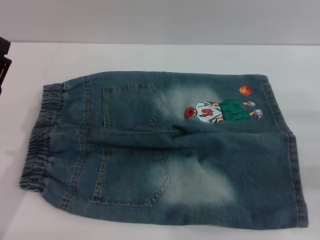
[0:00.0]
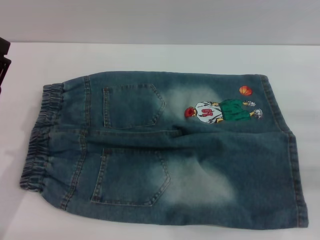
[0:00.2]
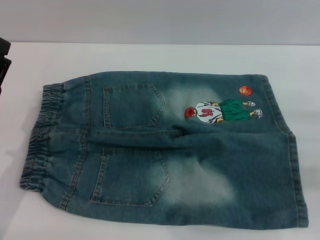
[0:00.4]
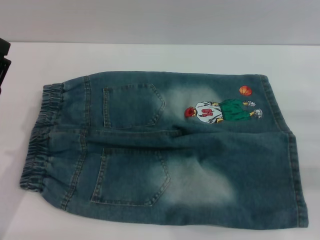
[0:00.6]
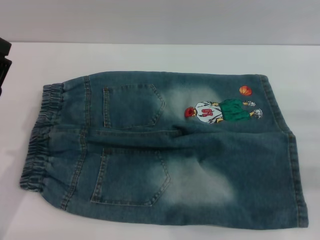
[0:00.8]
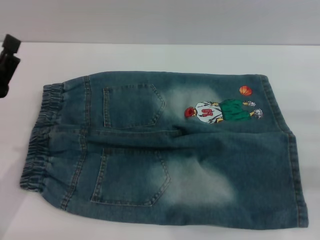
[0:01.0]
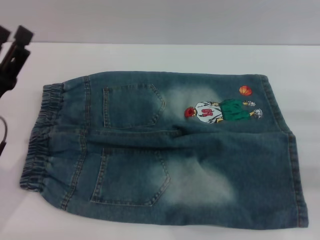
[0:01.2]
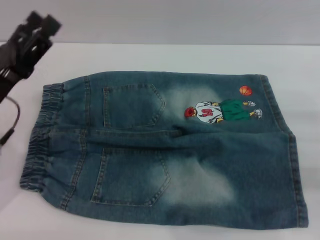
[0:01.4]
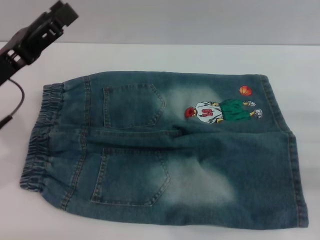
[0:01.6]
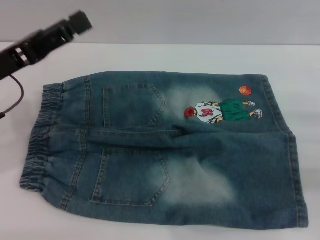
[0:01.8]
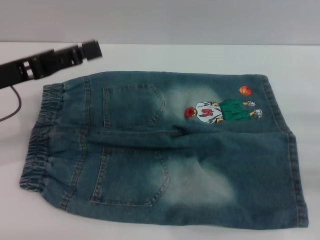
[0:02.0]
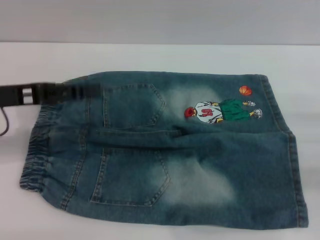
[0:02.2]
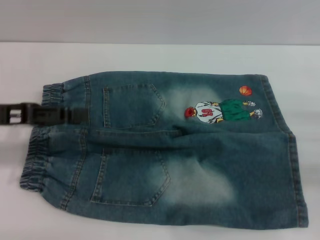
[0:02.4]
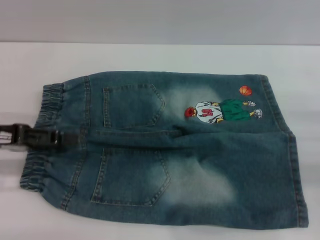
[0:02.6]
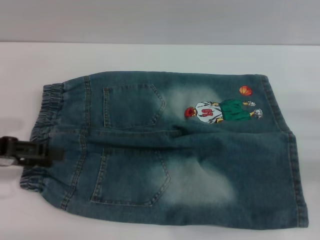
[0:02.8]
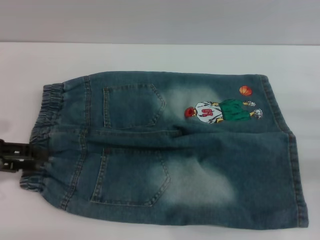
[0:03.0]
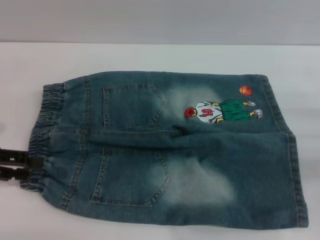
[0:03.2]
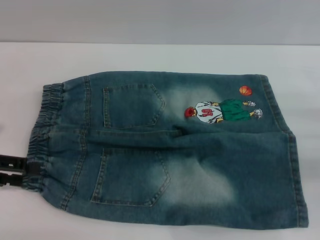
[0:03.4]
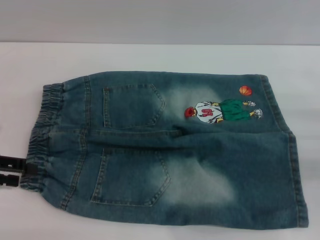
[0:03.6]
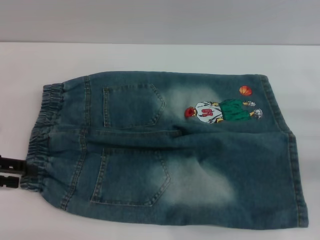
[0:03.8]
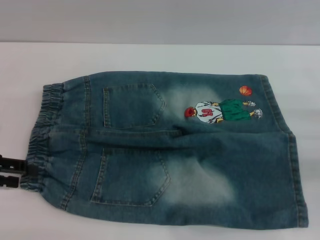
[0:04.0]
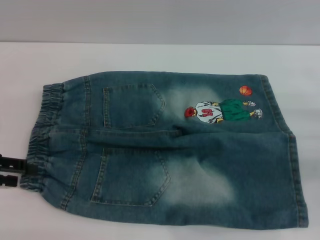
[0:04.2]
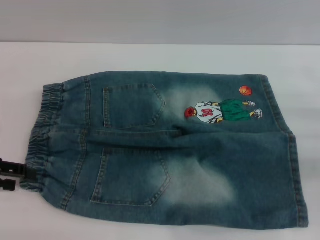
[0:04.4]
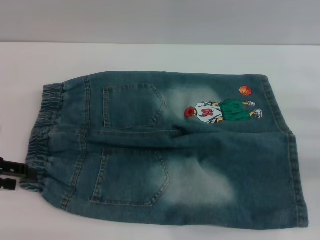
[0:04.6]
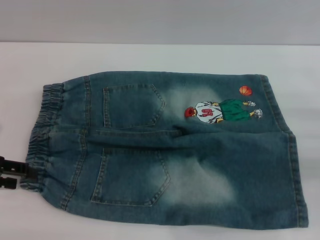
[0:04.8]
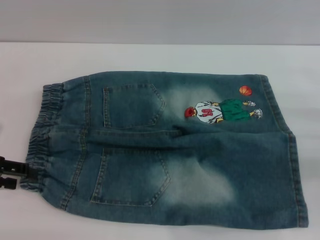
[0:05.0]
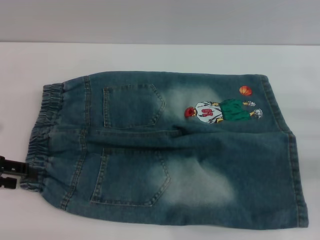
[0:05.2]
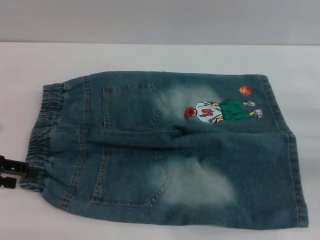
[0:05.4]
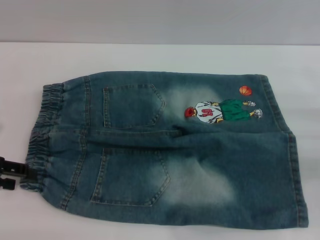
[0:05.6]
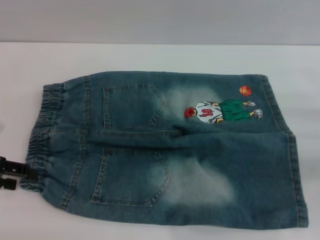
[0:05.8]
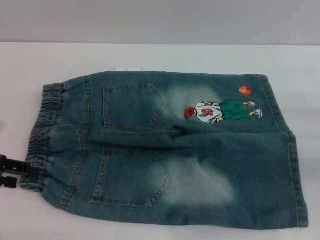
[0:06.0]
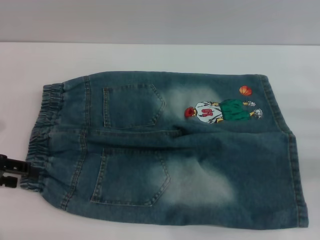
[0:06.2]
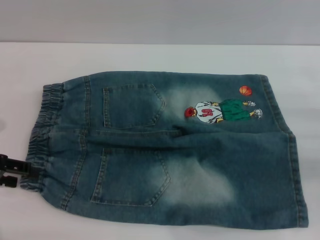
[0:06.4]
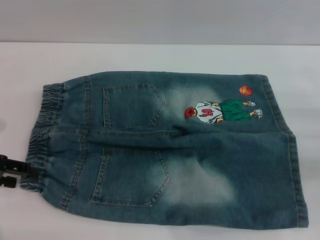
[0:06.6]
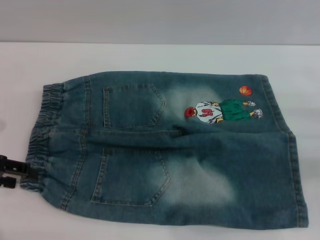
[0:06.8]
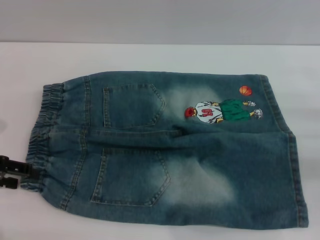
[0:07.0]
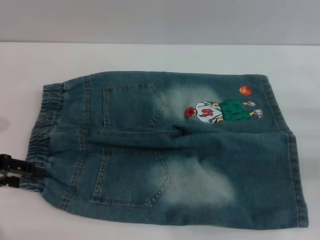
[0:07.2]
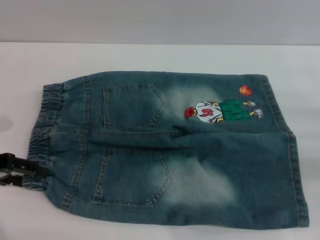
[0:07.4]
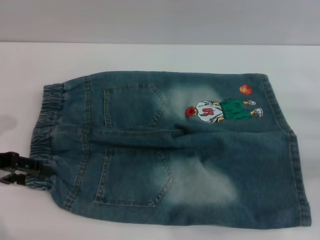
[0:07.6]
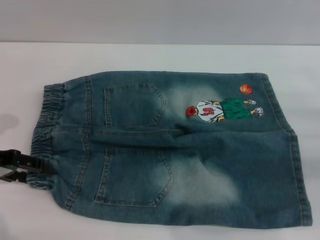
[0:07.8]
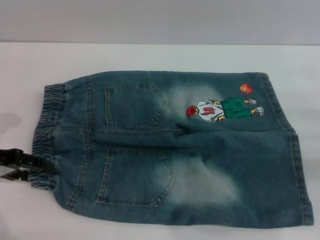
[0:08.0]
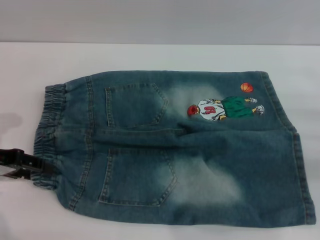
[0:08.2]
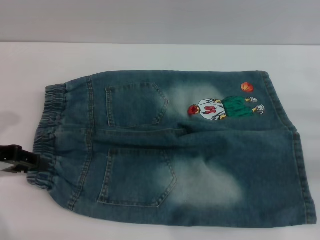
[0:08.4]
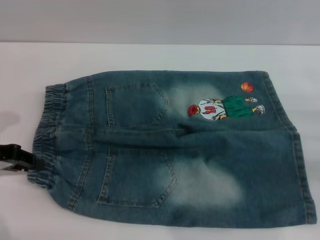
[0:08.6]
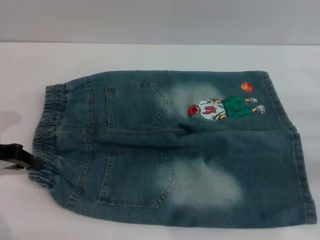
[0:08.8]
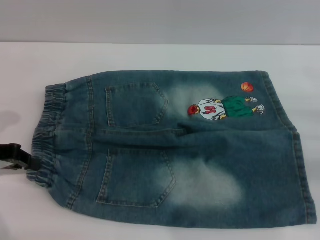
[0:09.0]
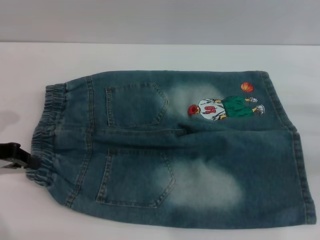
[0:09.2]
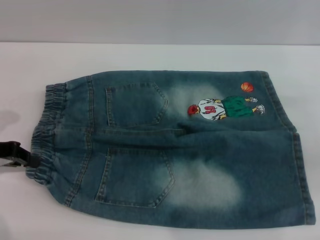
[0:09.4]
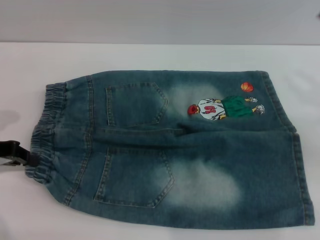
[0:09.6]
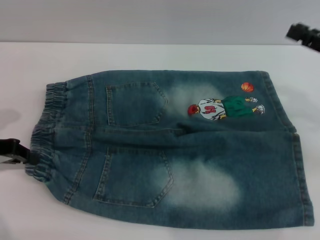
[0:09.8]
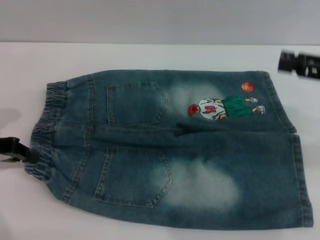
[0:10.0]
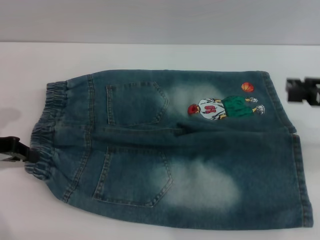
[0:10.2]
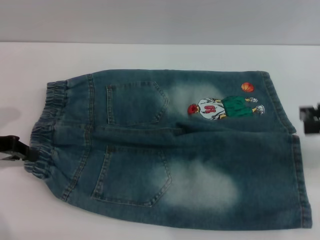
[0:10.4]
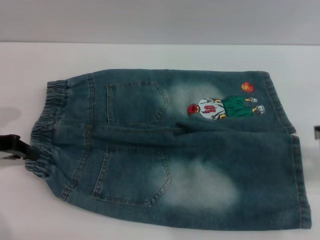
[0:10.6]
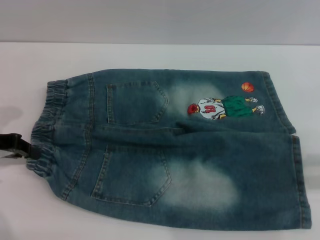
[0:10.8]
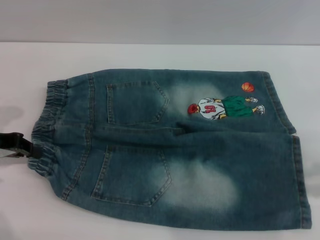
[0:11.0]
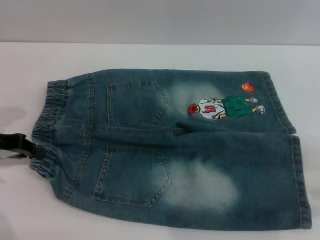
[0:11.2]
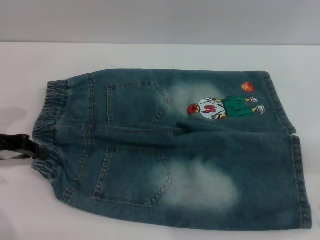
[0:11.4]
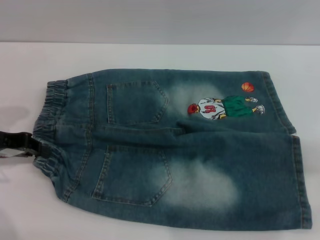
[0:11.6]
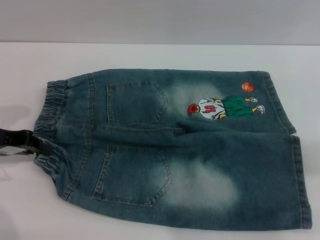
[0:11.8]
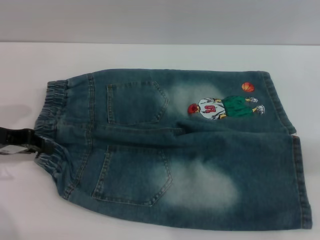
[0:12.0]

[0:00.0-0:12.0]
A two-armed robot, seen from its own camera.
0:00.0 to 0:01.6: The left gripper goes approximately 10 cm upward and forward.
0:01.6 to 0:03.0: The left gripper moves to the left, approximately 10 cm.
0:03.0 to 0:04.4: The grippers stay close to where they were, moving slightly.
0:04.4 to 0:06.0: Both grippers stay put.
0:06.0 to 0:07.6: The grippers move only a little.
0:07.6 to 0:09.0: The left gripper closes its fingers.
0:09.0 to 0:10.4: The right gripper heads upward, covering roughly 10 cm.
0:10.4 to 0:12.0: The right gripper moves some 5 cm.

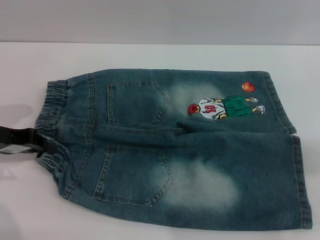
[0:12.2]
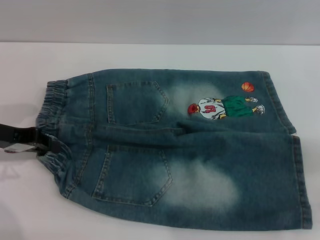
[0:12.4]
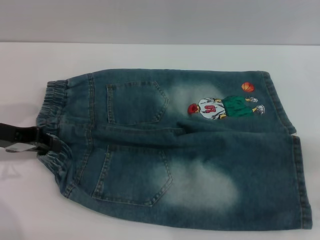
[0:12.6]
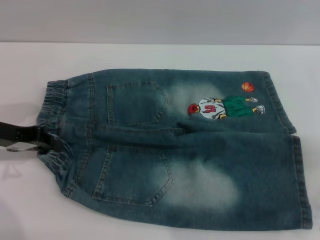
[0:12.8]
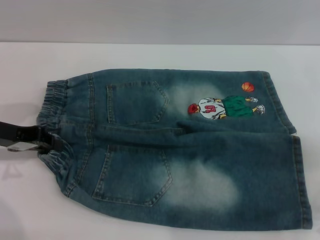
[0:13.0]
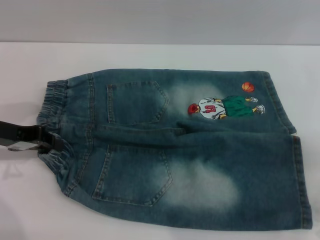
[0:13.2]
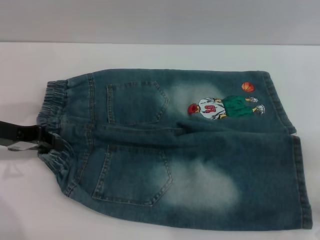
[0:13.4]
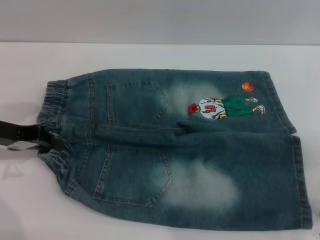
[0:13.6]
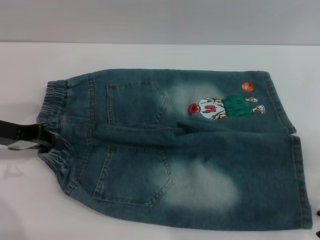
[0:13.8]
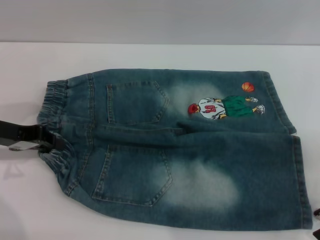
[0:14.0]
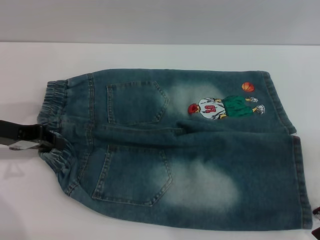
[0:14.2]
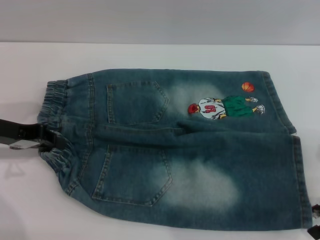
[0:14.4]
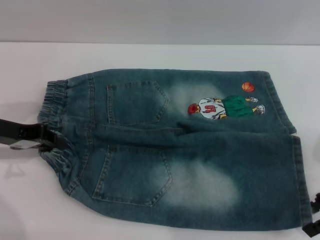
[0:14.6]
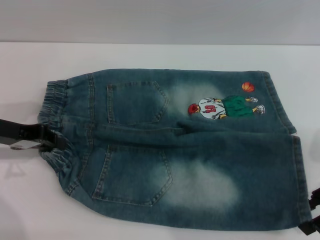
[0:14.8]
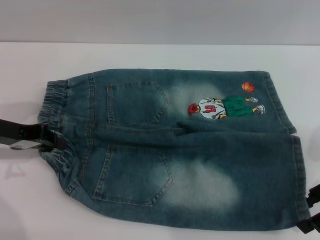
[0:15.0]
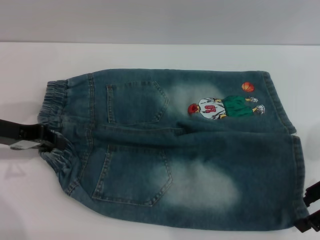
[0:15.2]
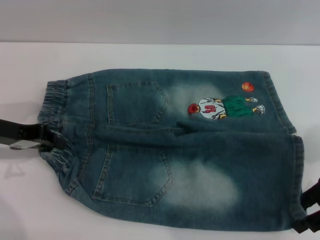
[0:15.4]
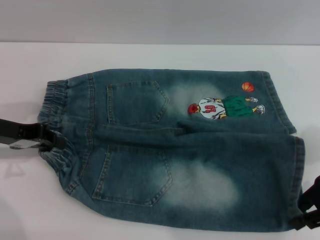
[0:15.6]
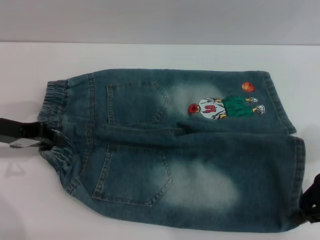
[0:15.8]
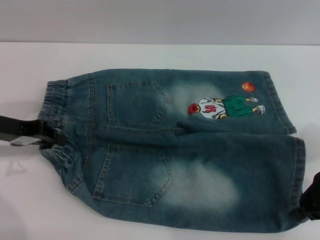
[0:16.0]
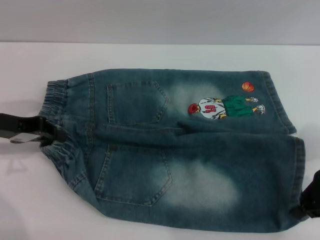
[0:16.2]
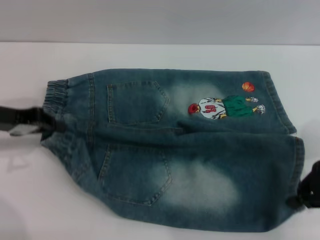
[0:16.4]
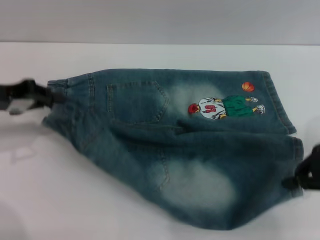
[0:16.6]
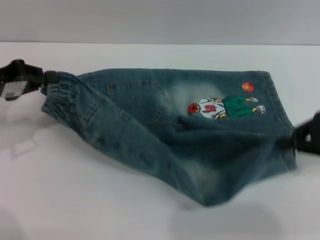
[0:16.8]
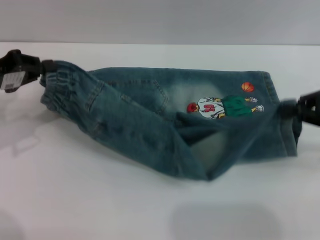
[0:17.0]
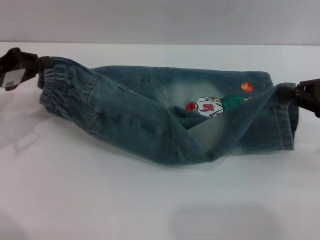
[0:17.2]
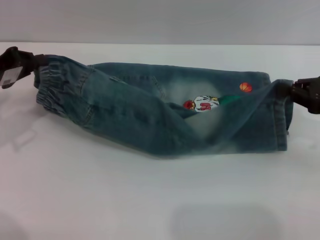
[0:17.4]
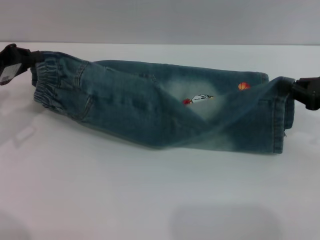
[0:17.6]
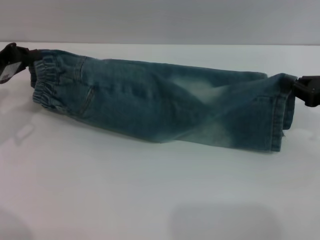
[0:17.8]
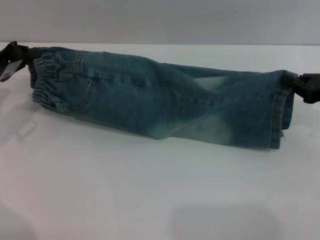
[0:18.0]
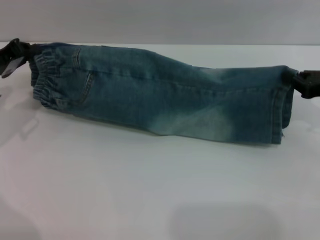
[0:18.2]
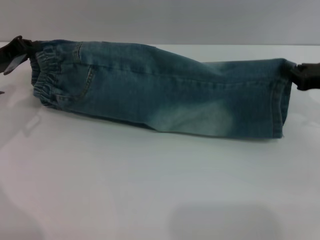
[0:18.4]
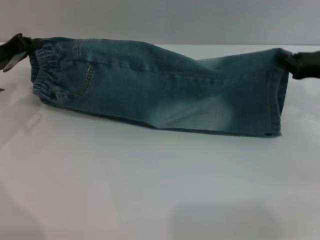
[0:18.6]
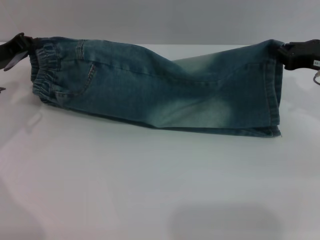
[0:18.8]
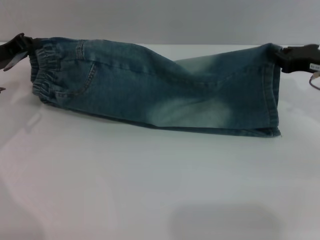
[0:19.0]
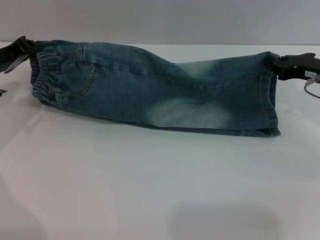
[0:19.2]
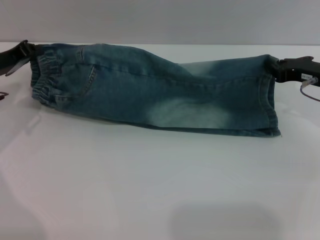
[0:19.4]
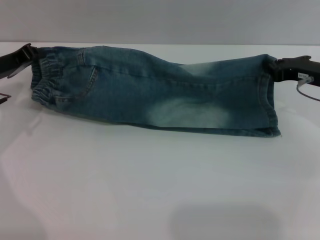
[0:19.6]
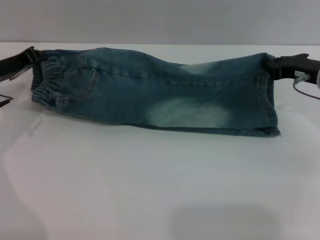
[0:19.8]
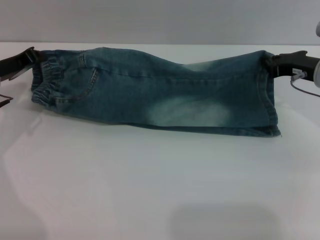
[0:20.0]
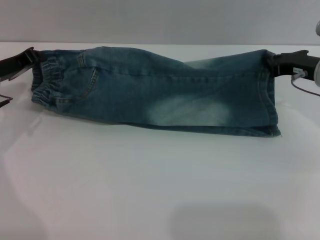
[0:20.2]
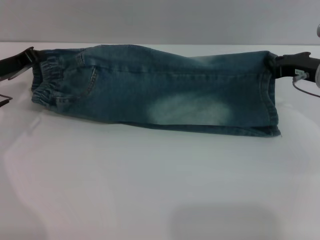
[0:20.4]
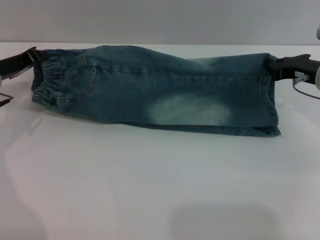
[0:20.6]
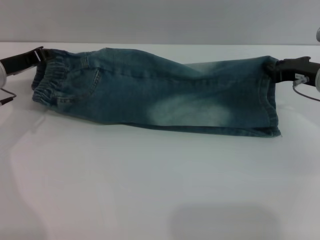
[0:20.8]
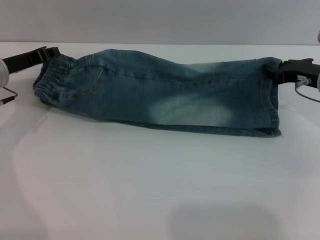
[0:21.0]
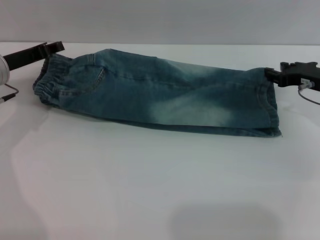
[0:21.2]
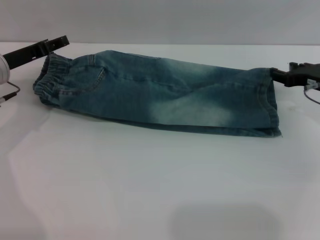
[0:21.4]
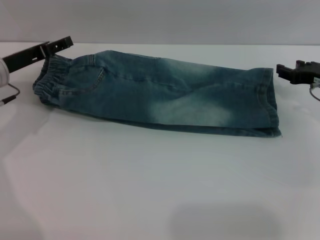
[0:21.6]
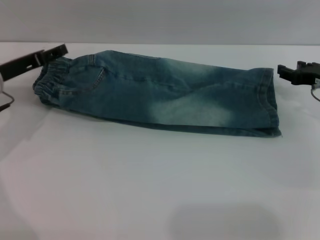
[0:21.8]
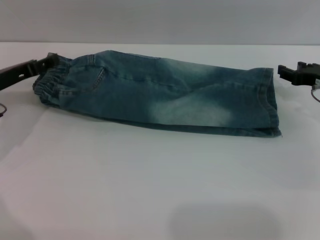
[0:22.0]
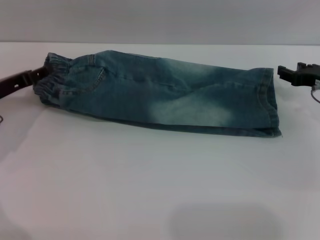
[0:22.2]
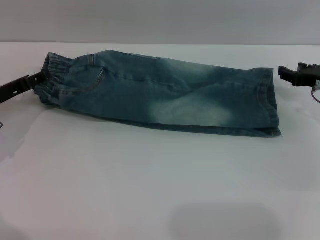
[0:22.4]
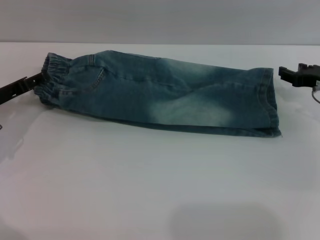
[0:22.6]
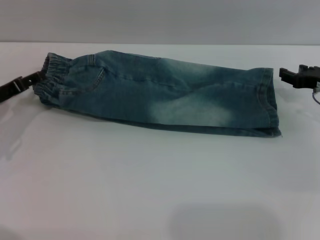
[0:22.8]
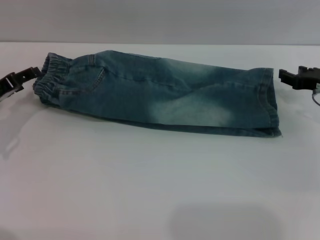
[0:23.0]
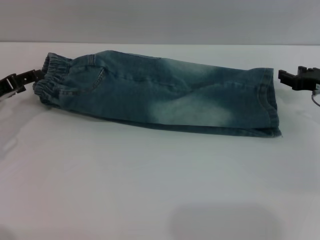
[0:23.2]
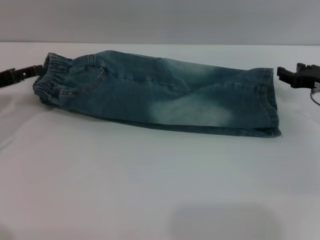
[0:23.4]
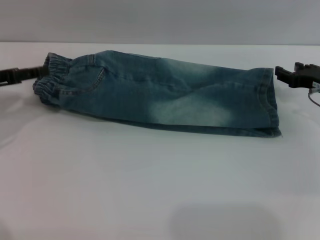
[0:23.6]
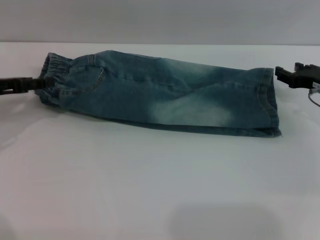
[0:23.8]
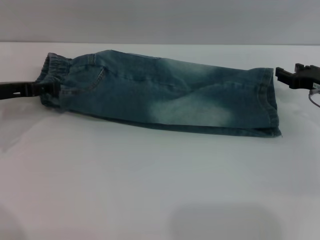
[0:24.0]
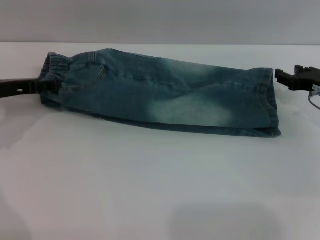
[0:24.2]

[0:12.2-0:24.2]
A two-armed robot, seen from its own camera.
Step, 0:12.2 to 0:21.6: Fold the bottom of the pants upward with both grippers.
0:12.2 to 0:13.8: The grippers stay close to where they were, moving slightly.
0:13.8 to 0:15.2: The grippers stay close to where they were, moving slightly.
0:15.2 to 0:16.6: The right gripper closes its fingers.
0:16.6 to 0:18.2: The right gripper changes place by approximately 5 cm.
0:18.2 to 0:19.8: The right gripper travels forward and to the left by approximately 5 cm.
0:19.8 to 0:21.2: The right gripper opens its fingers.
0:21.2 to 0:22.6: The left gripper ends up roughly 5 cm from where it was, and opens up.
